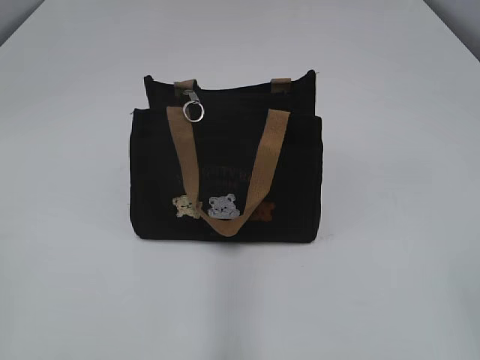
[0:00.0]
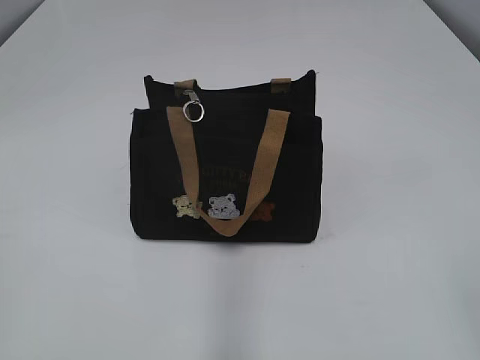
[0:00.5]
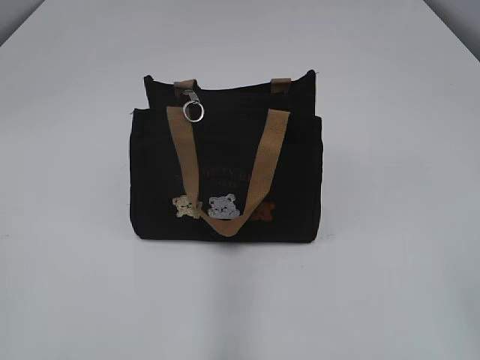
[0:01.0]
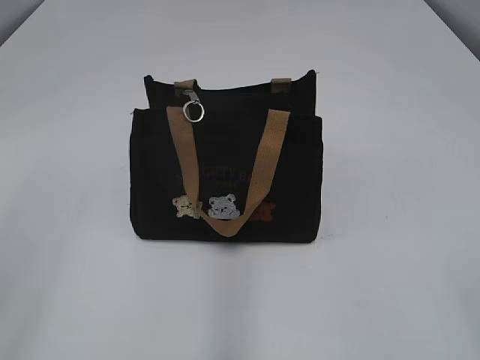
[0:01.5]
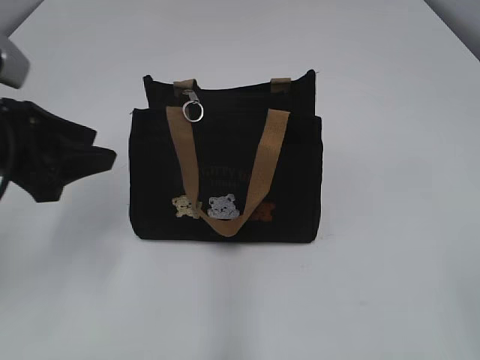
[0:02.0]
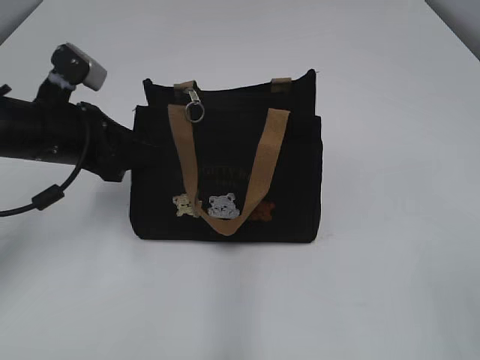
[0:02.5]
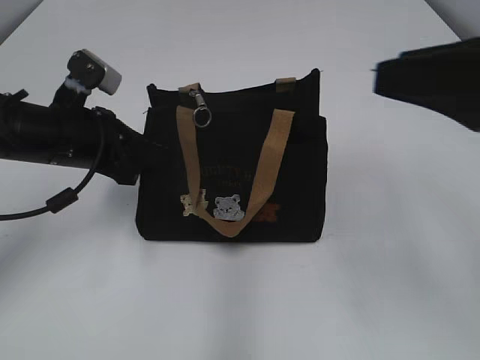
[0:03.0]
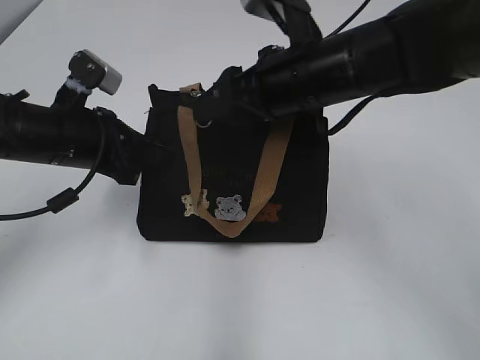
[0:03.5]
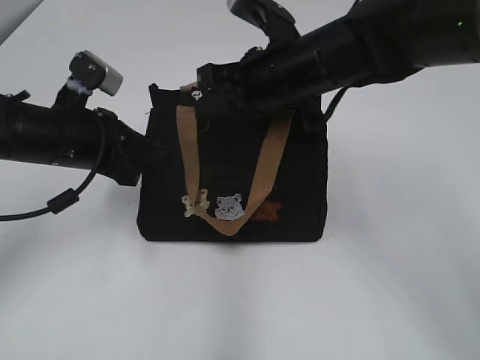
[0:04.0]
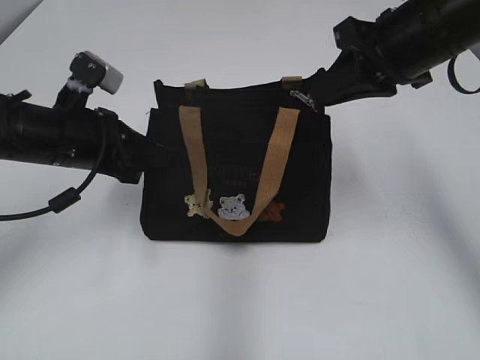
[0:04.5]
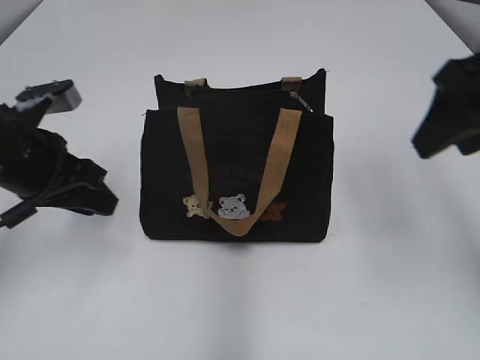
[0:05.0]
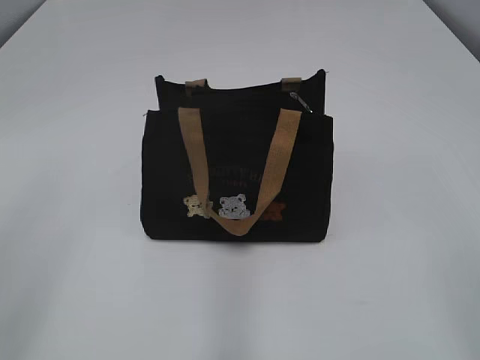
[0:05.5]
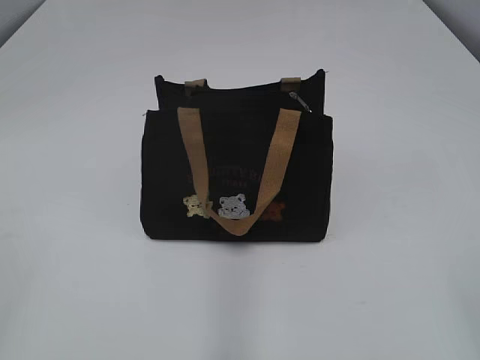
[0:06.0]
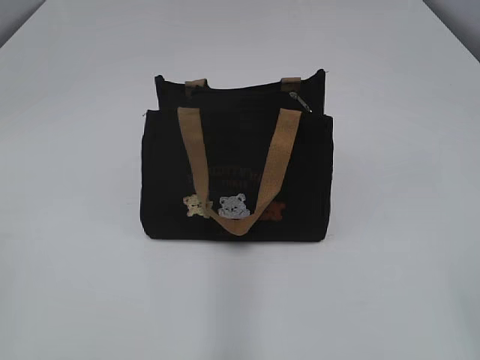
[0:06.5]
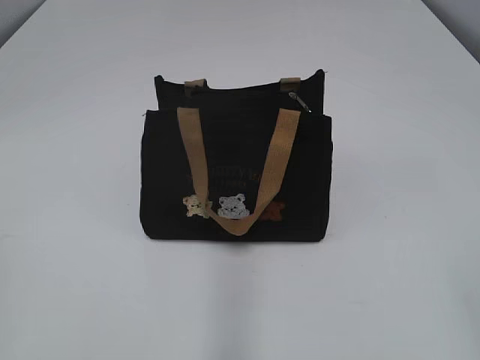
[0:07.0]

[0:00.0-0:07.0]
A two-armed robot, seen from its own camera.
Step, 0:00.0 to 0:04.0: Zip up the bag with your right hand.
0:02.0 to 0:03.5: The left gripper shifts some 15 cm forward, downward and to the right, and closes its fingers; the right gripper is displaced forward and to the left by about 35 cm.
0:03.5 to 0:05.0: The left gripper opens up. The right gripper shifts some 10 cm to the right and upward, and closes, then reopens.
0:05.0 to 0:07.0: The grippers both shift backward by about 30 cm.

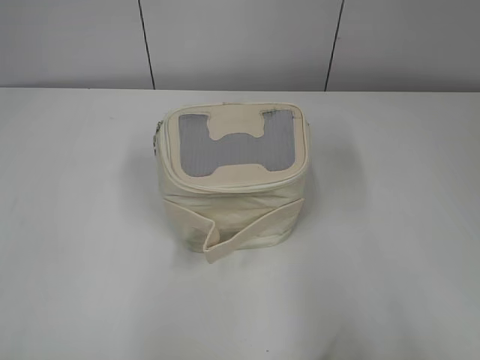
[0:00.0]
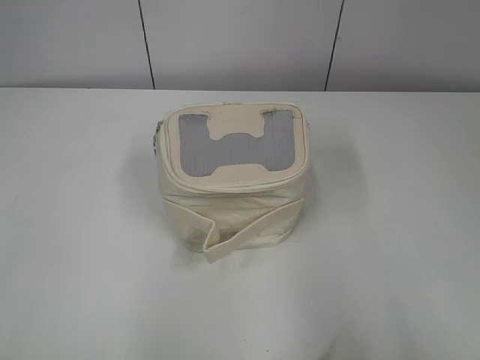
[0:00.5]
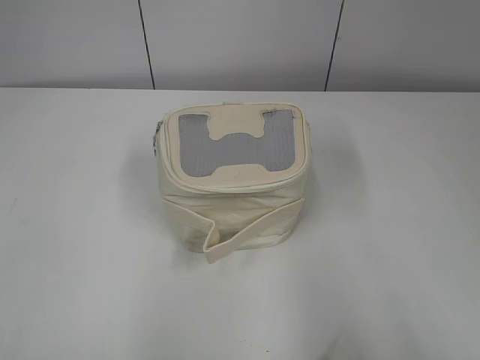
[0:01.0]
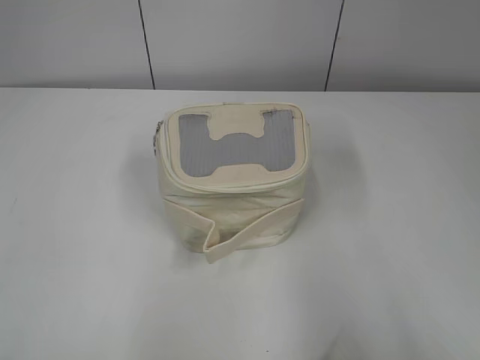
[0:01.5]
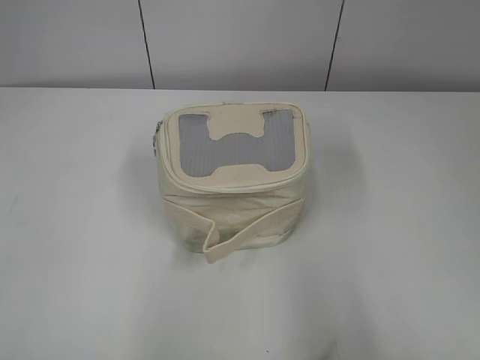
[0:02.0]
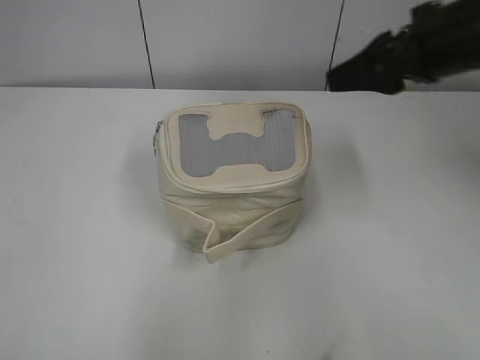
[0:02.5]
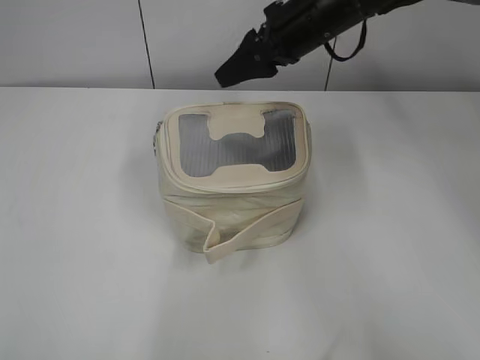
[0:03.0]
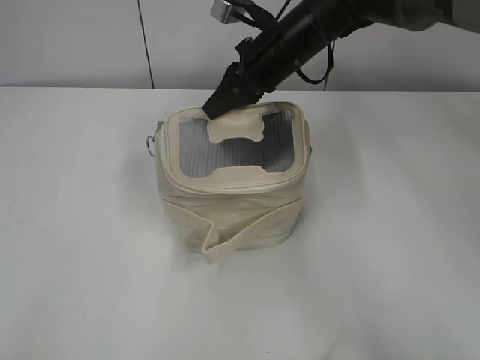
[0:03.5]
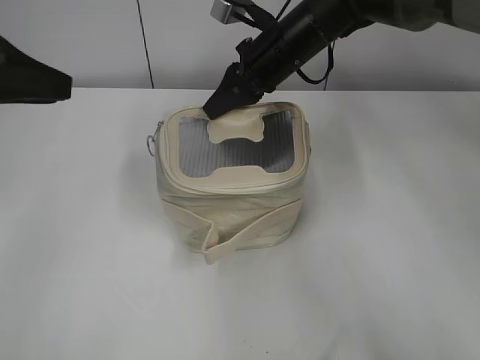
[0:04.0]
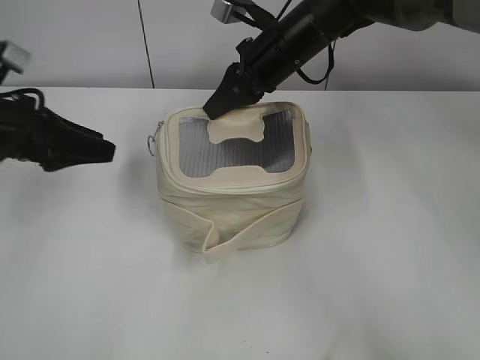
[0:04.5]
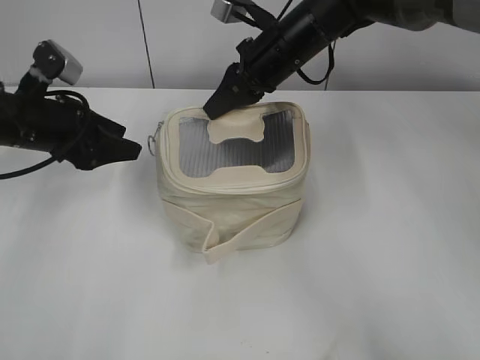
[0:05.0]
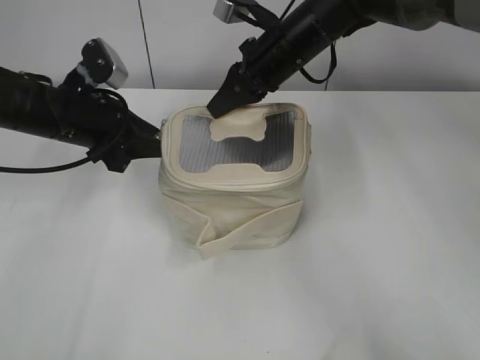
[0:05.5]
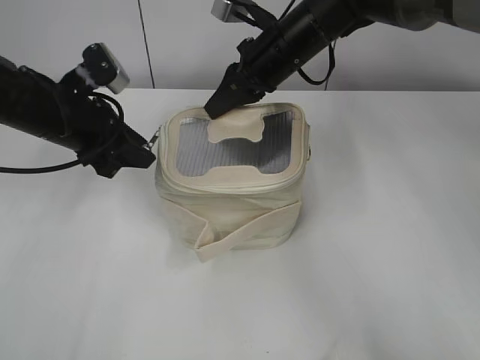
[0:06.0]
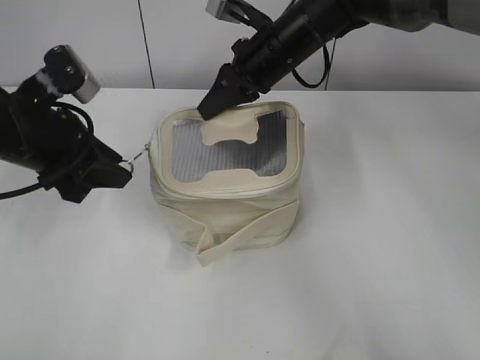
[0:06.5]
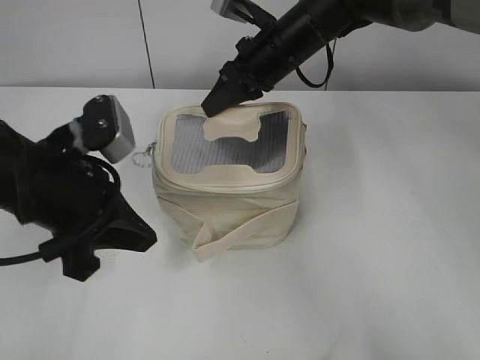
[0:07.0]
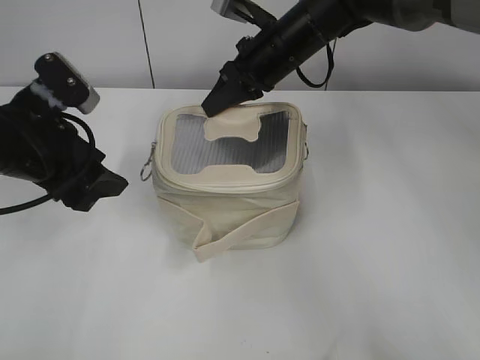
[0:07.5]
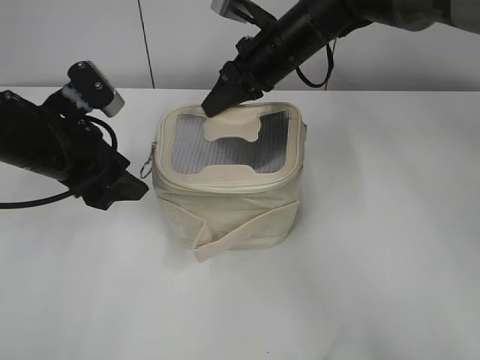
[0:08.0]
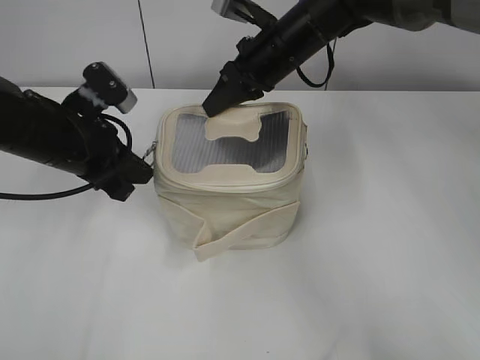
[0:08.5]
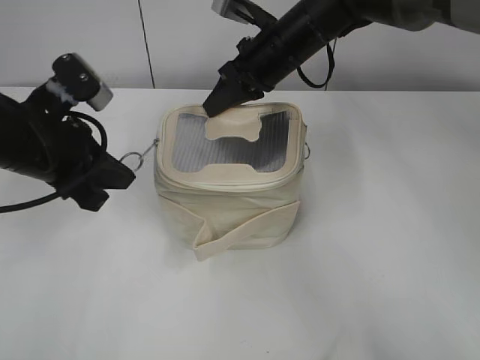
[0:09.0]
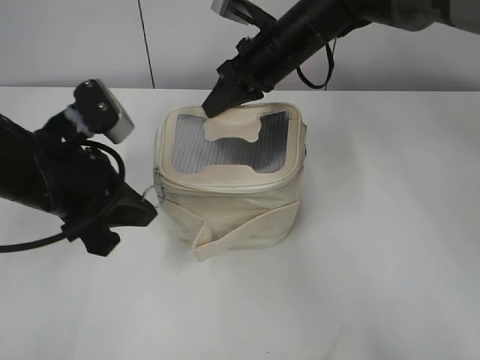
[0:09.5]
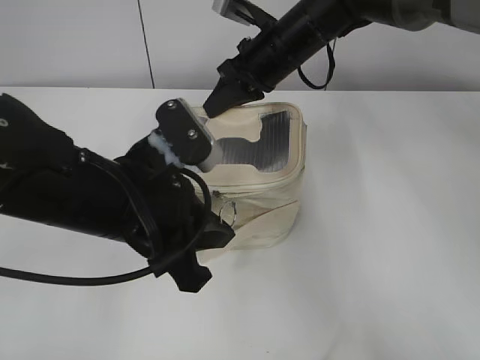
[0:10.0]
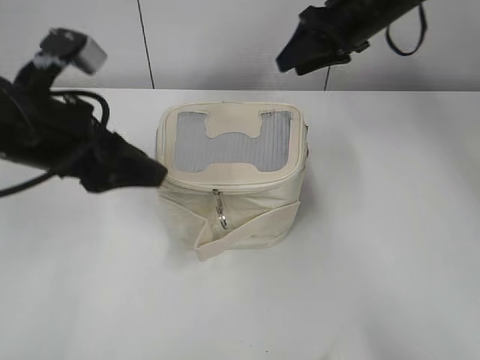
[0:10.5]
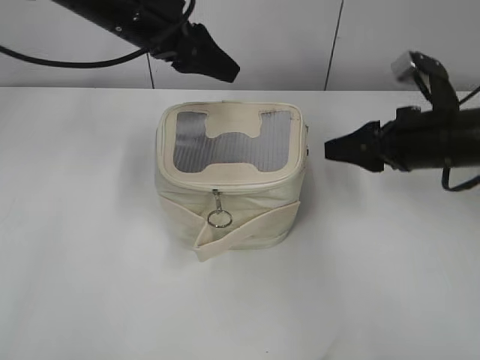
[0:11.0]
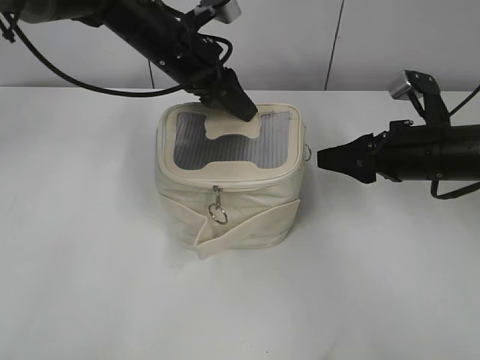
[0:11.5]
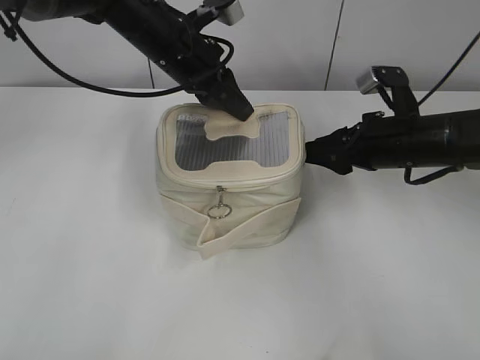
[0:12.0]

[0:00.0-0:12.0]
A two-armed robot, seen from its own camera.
Step, 0:00.0 to 0:10.0: Zip up the bag with your left hand.
0:02.0 to 0:04.0: The left gripper goes about 25 cm forward. The right gripper heads forward and to the left, covering roughly 50 cm, and closes up.
0:04.0 to 0:06.0: The left gripper moves downward and forward, about 15 cm, and opens, then closes again.
0:06.0 to 0:08.0: The left gripper is displaced backward by roughly 5 cm, and opens up.
0:08.0 to 0:10.0: The left gripper is displaced to the right and backward by some 15 cm, and closes.
0:10.0 to 0:12.0: The left gripper moves forward, some 25 cm, and opens and closes again. Meanwhile the right gripper travels to the right, backward and downward by approximately 20 cm, and opens its fingers.

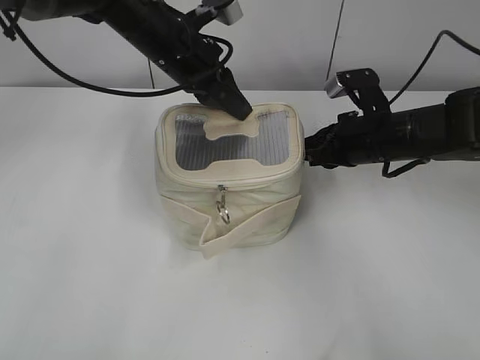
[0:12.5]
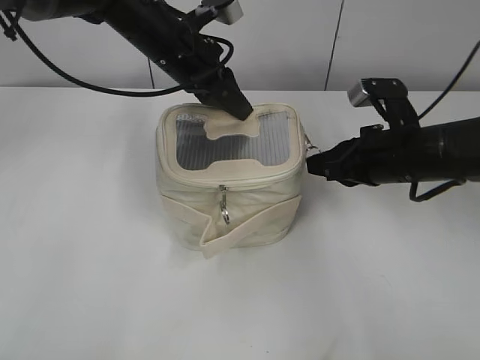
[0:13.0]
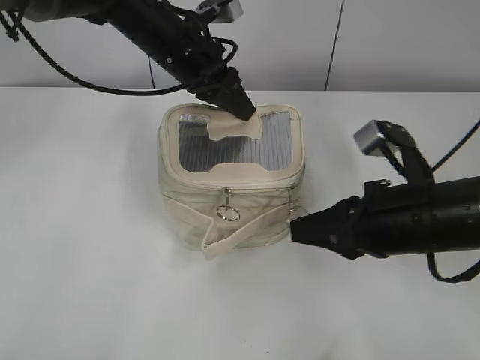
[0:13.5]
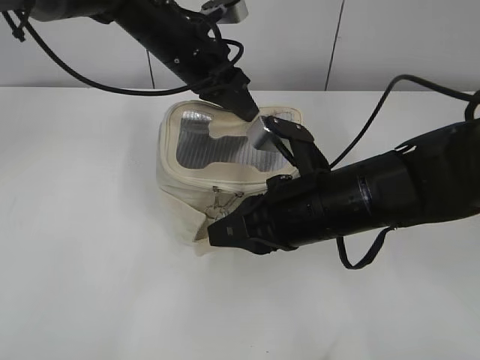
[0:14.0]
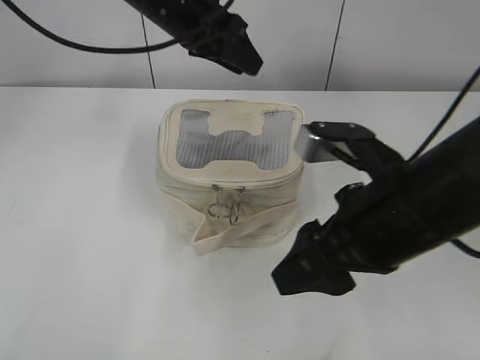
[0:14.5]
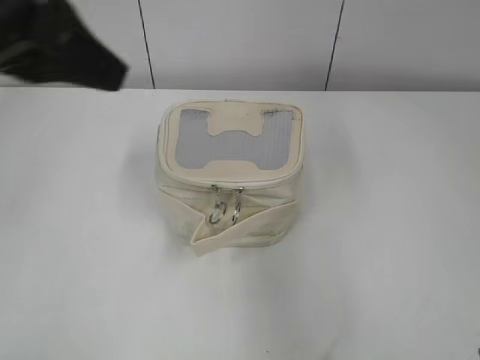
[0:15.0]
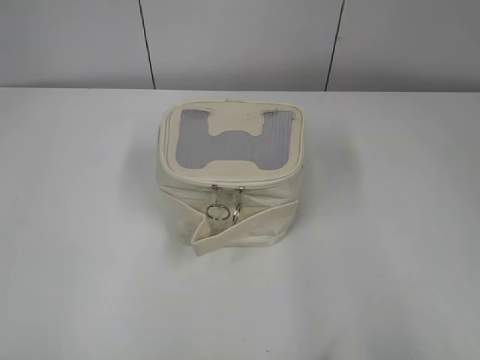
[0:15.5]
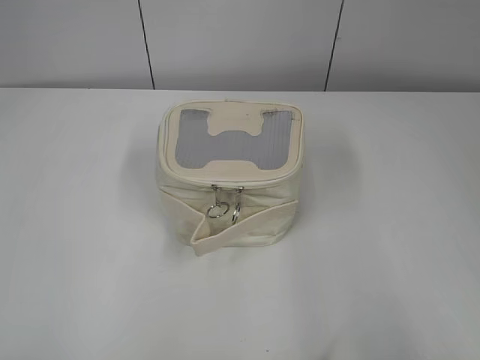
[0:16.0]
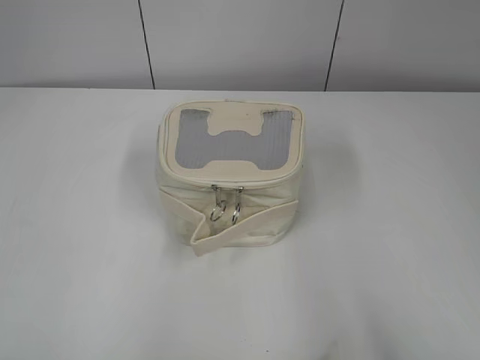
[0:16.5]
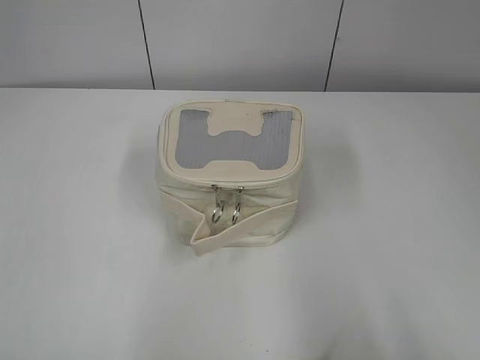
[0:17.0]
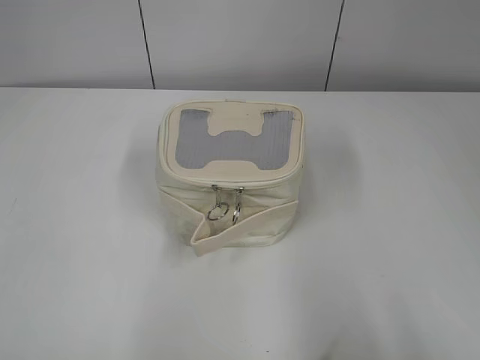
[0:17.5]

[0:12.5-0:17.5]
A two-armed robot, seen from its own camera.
0:12.5 to 0:15.0: The right gripper goes about 30 cm backward and upward, and opens, while the left gripper is displaced backward, upward and to the left by approximately 25 cm, and opens.
0:15.0 to 0:17.5: The left gripper moves backward and to the left, about 25 cm; the right gripper moves backward and to the right, roughly 10 cm.
